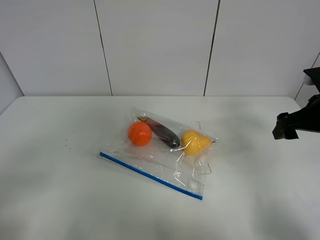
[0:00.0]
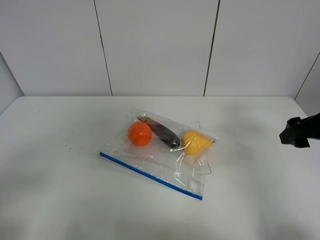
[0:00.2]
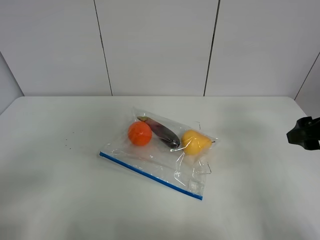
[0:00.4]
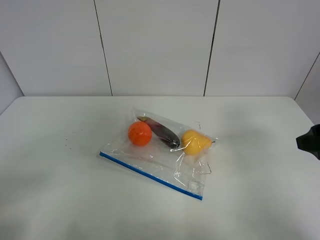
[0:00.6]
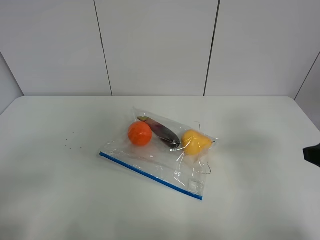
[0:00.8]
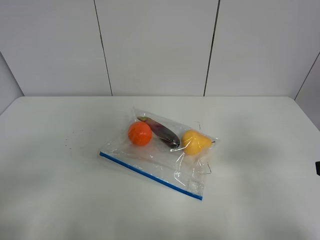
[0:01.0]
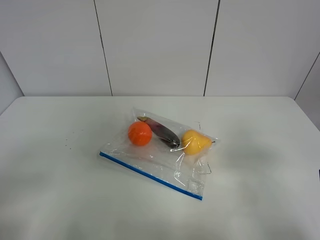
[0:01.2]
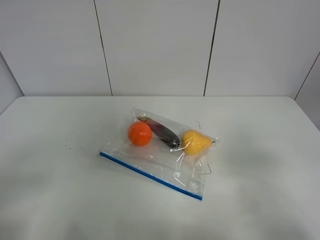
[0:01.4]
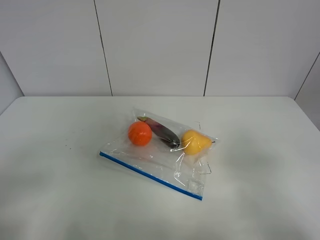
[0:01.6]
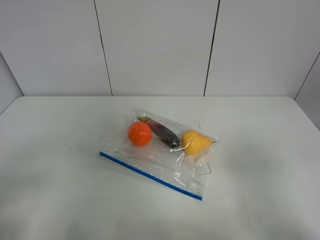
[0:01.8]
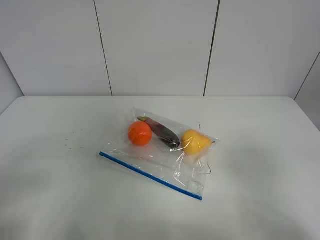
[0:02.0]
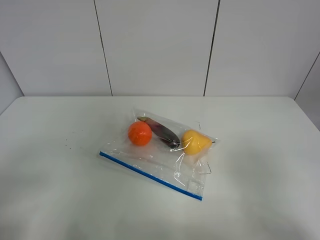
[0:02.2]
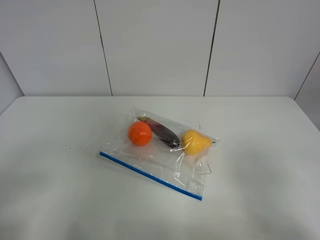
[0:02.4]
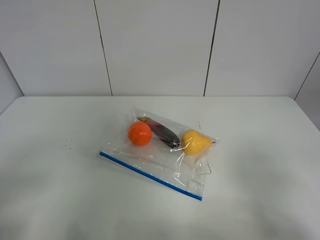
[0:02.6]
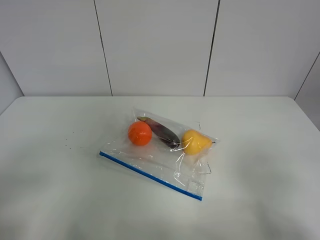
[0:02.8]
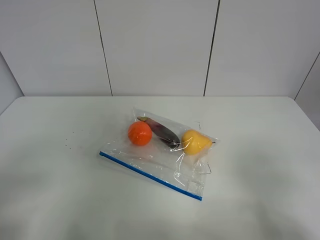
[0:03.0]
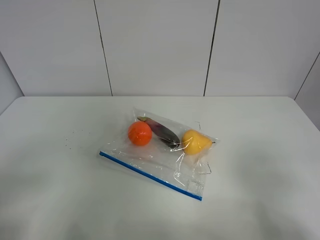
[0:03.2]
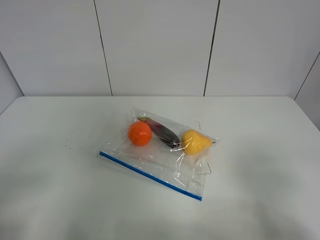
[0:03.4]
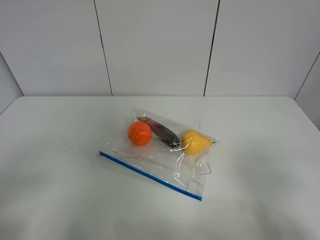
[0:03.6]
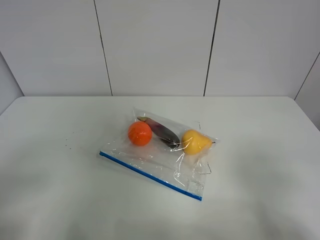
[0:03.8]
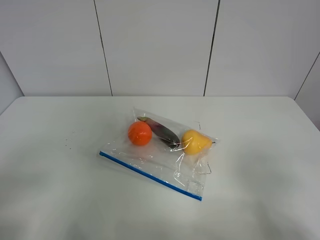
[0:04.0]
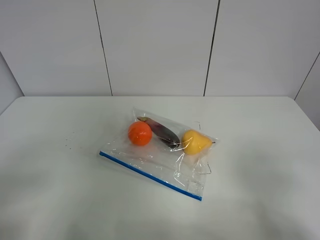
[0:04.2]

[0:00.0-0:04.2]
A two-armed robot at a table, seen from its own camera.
0:00.0 to 0:01.4: The right gripper travels backward by some 20 cm.
0:02.8 to 0:04.2: Neither gripper changes place.
